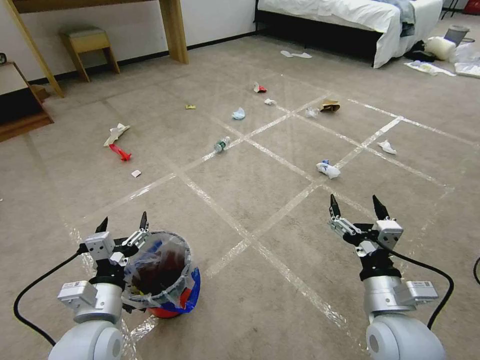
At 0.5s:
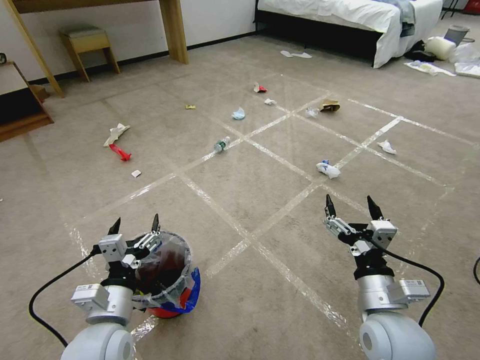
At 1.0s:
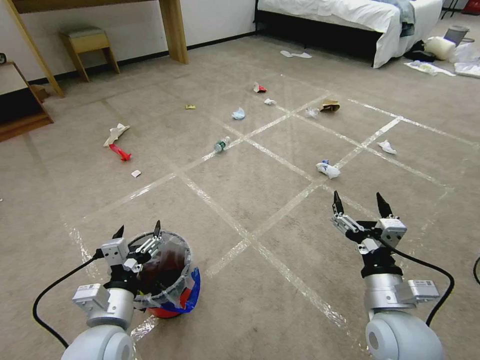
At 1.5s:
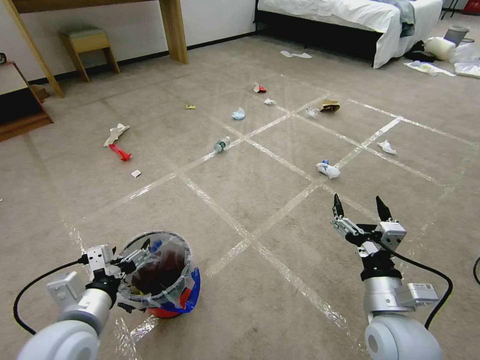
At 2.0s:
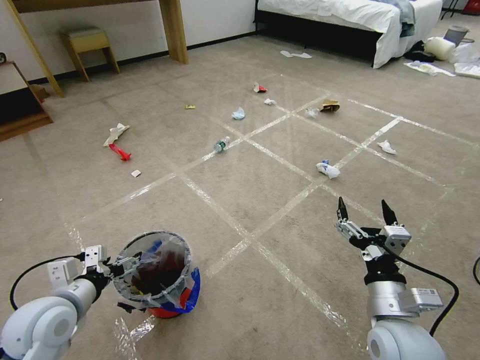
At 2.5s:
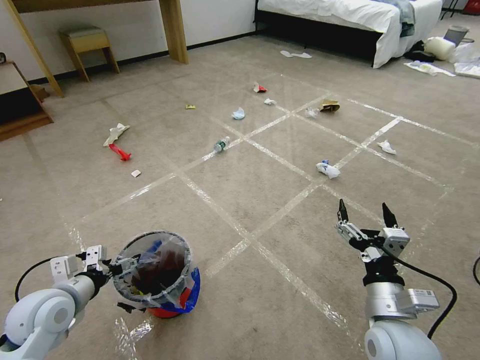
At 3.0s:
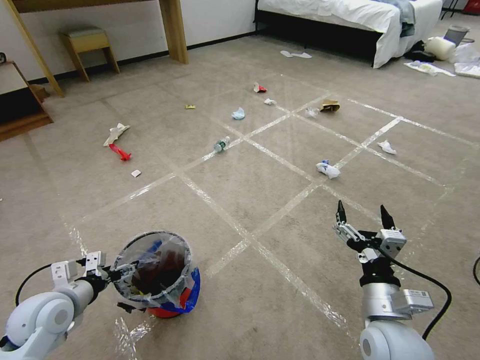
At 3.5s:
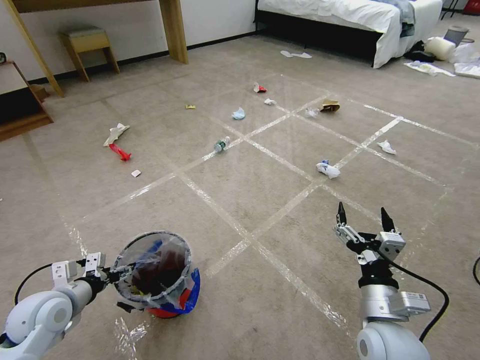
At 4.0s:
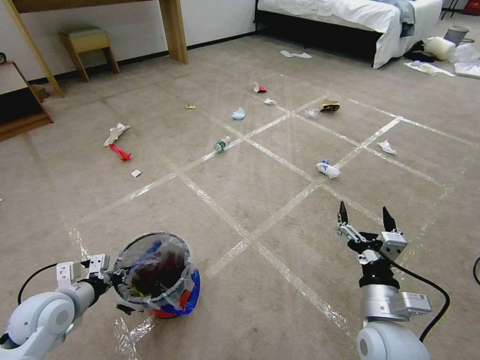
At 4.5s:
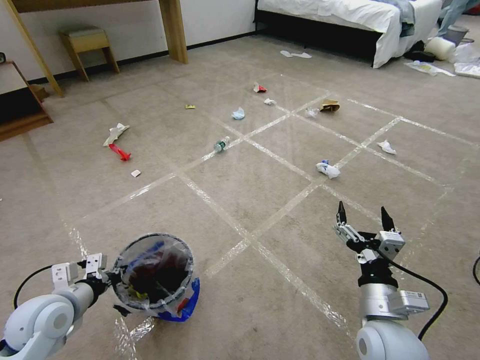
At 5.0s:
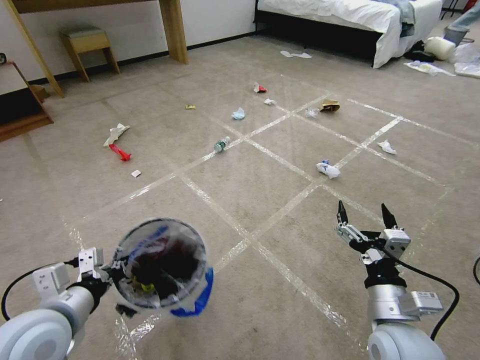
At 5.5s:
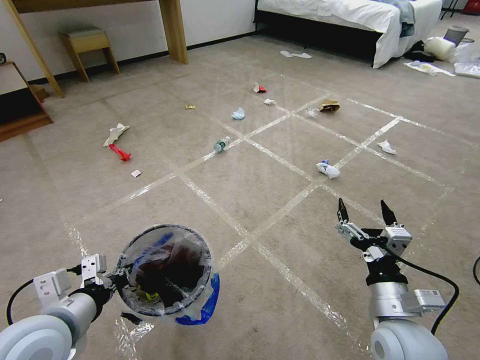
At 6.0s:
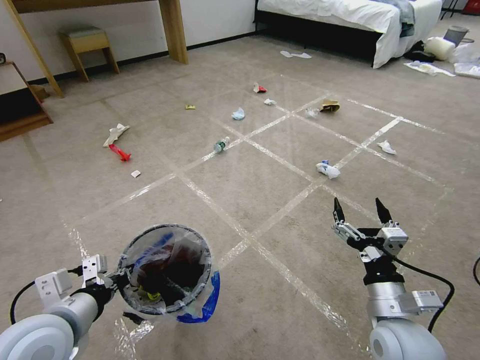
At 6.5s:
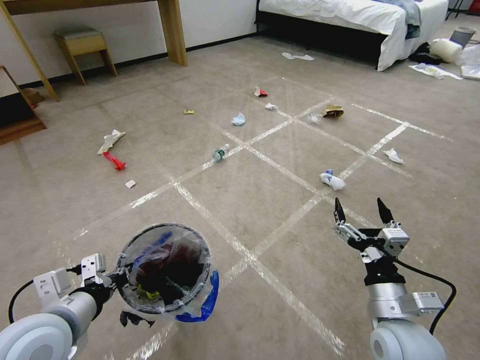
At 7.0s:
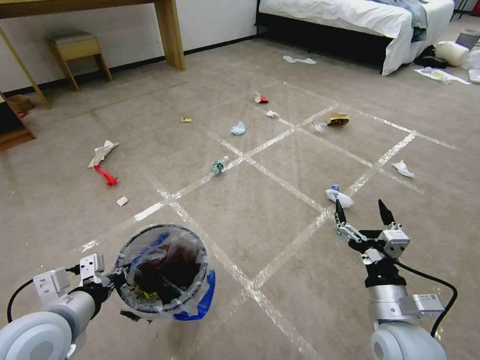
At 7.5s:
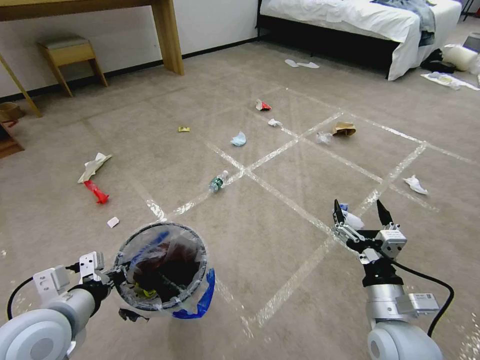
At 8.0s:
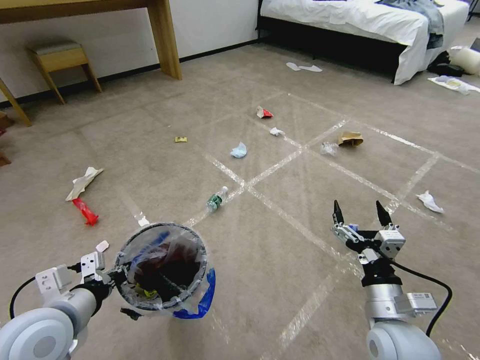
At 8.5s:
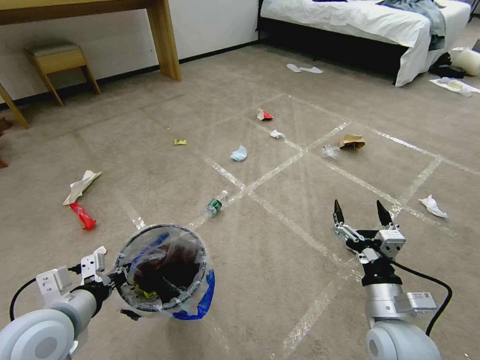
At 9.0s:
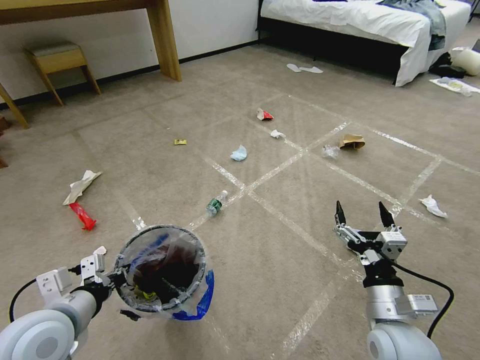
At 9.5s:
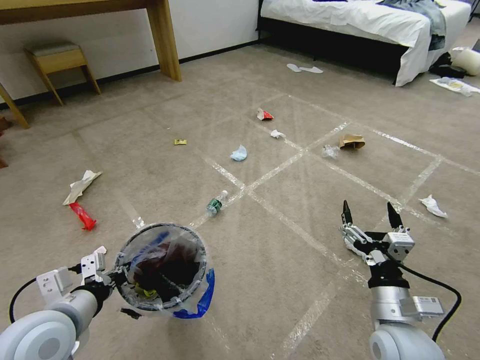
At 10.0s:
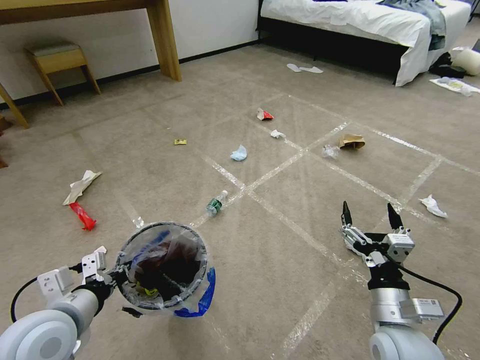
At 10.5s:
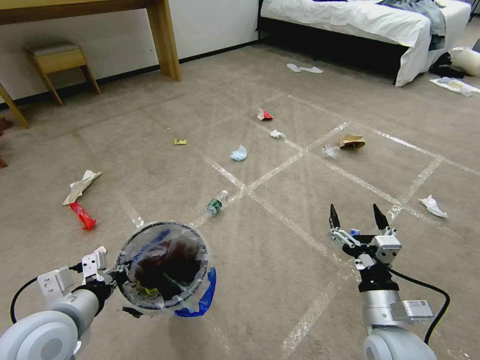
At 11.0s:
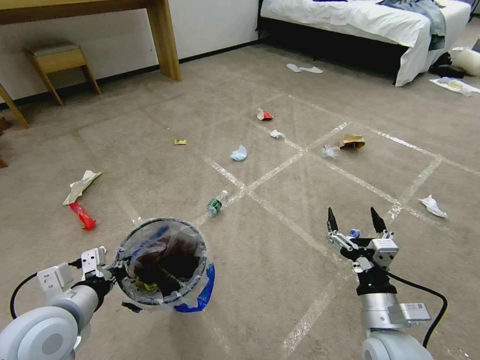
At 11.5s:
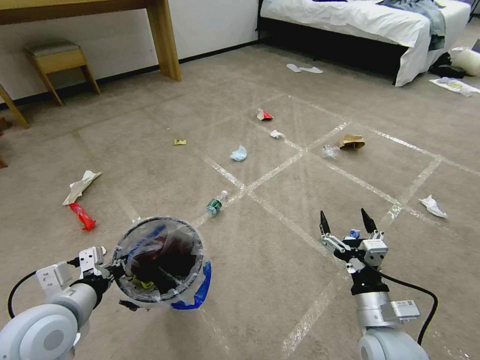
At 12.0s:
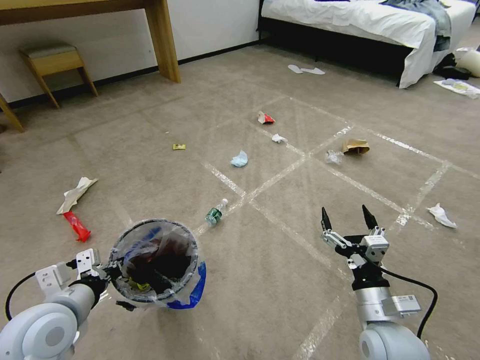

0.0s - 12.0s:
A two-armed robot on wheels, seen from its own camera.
Task of the whole recording: Pick up the trash bin and place the garbage on the floor into it.
2.0s - 4.0s: The left gripper ends up roughly 5 cm from where it was, and closes.
4.0s - 6.0s: The left gripper moves upward, to the right and backward, roughly 15 cm.
8.0s - 10.0s: The two grippers keep their place.
10.0s - 12.0s: The grippers make only small movements.

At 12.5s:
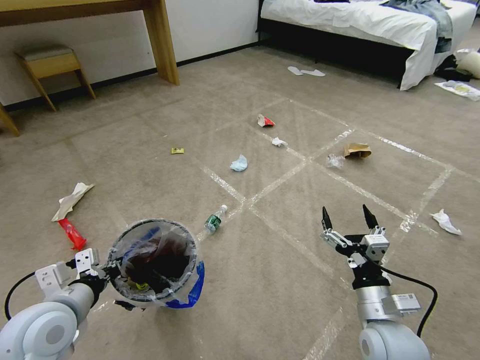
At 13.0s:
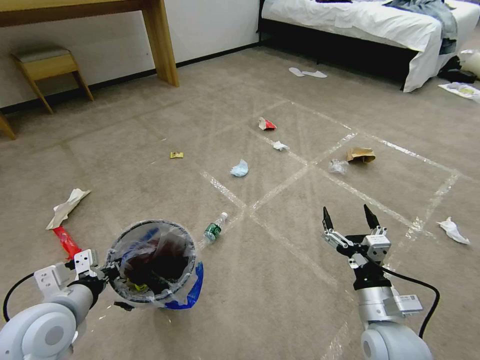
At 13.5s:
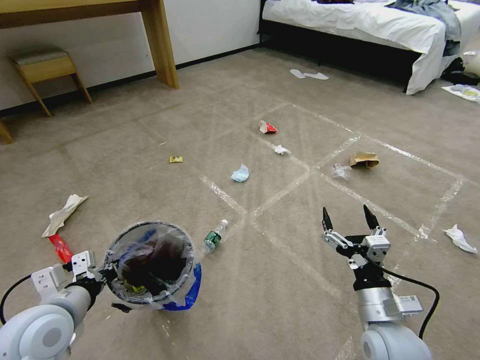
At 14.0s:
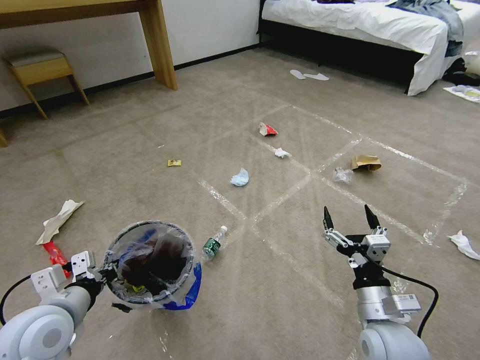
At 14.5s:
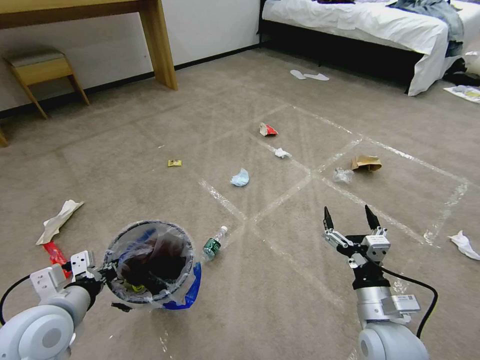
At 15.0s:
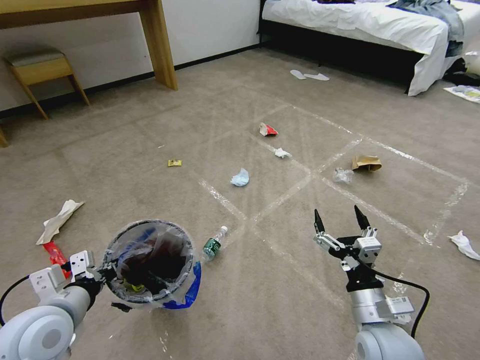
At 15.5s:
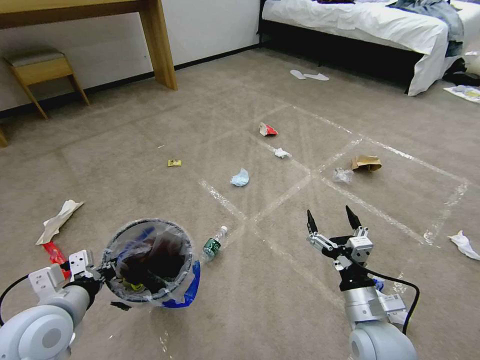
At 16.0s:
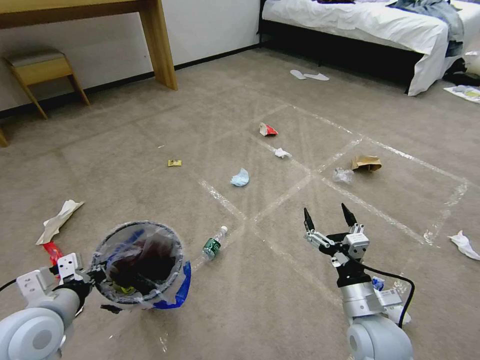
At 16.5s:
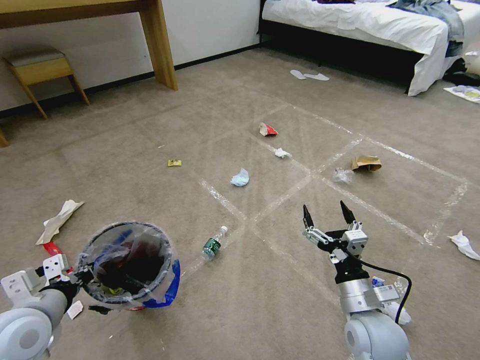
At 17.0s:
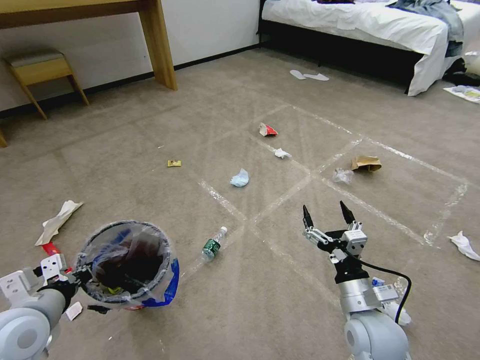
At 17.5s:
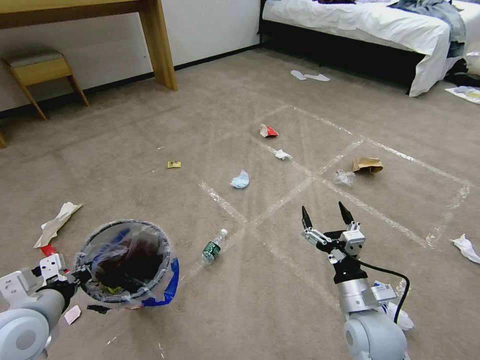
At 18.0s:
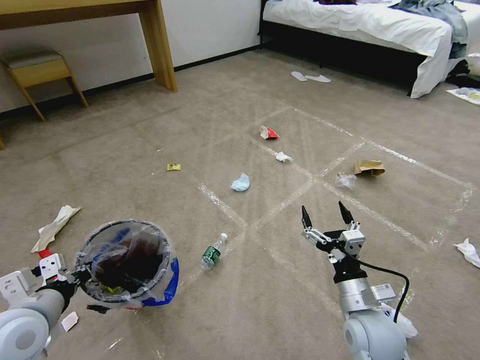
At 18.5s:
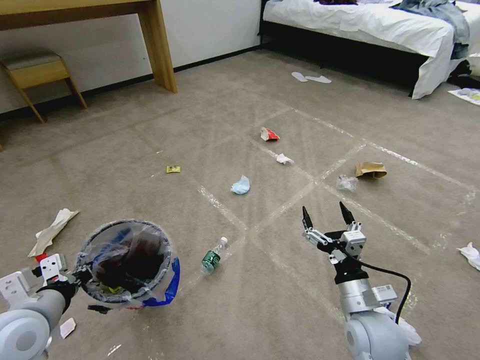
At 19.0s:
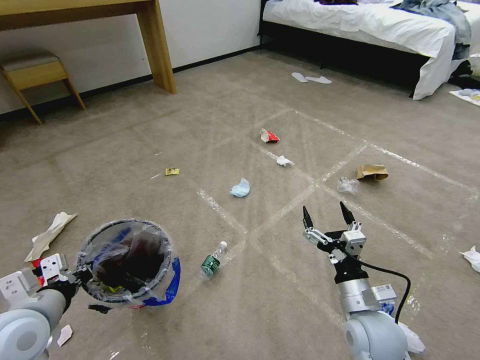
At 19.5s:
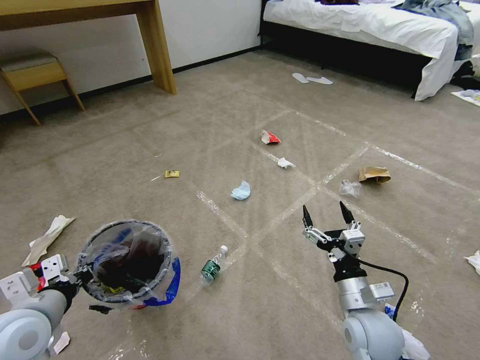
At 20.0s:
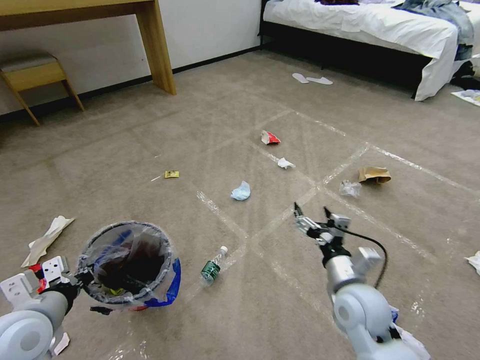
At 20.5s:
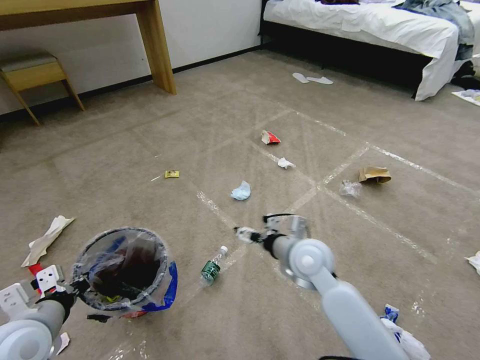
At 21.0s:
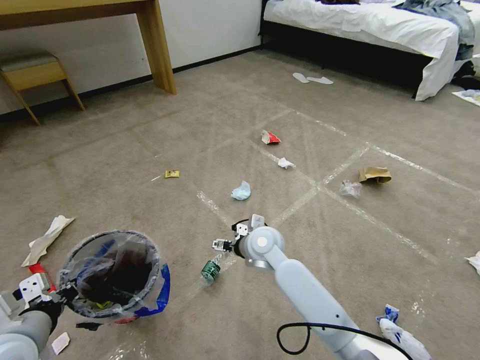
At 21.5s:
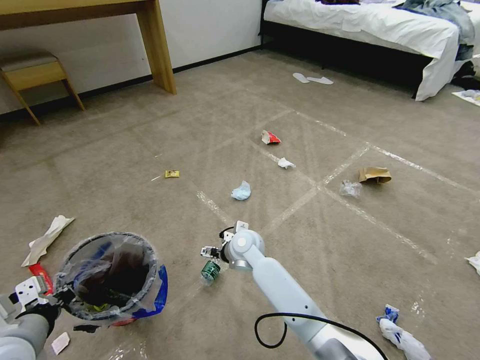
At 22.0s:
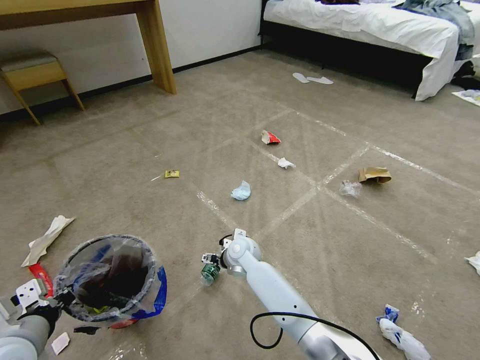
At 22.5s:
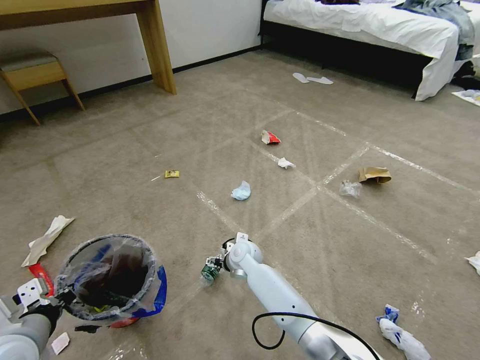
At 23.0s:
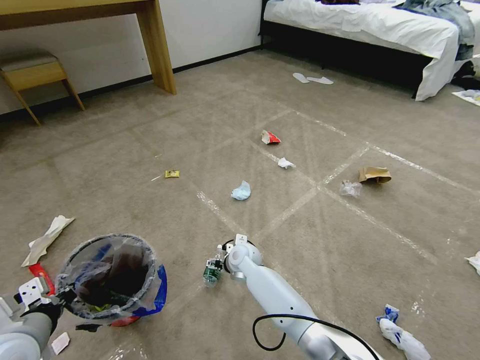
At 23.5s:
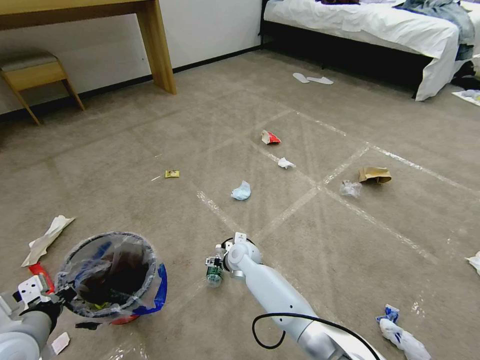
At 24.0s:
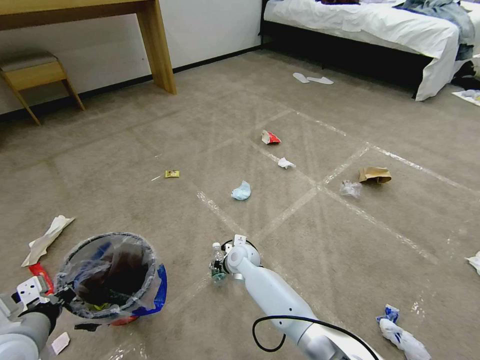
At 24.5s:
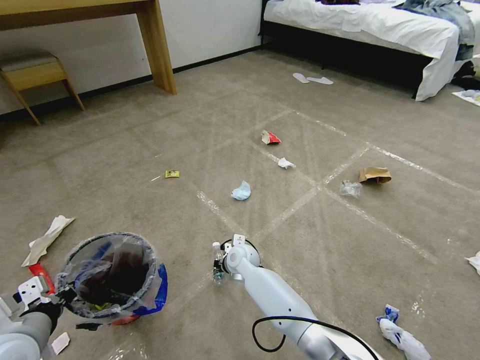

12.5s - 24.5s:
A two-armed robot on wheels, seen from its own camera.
Task of the whole recording: Pick up the trash bin and place the garbage on the floor into it.
12.5s - 14.5s: The two grippers keep their place.
14.5s - 16.5s: The grippers stay close to where they were, moving slightly.
16.5s - 18.5s: Both grippers stay about where they are.
18.5s - 20.5s: The right gripper travels forward and to the left by some 15 cm.
20.5s - 22.5s: The right gripper heads downward, to the left and forward, covering roughly 20 cm.
22.5s - 24.5s: The right gripper closes its fingers.

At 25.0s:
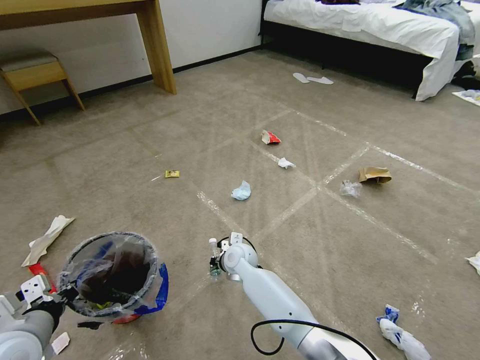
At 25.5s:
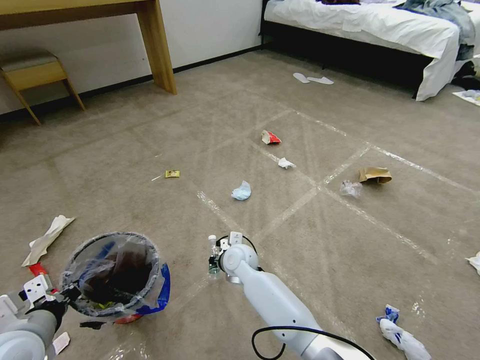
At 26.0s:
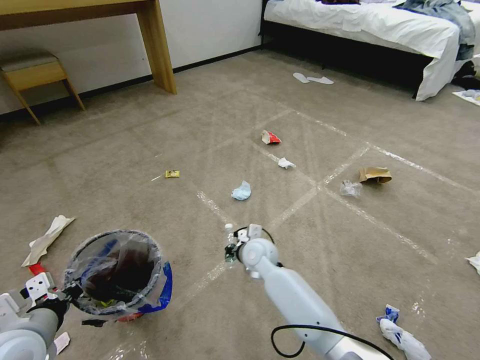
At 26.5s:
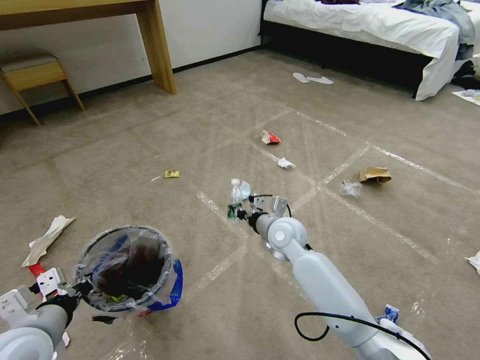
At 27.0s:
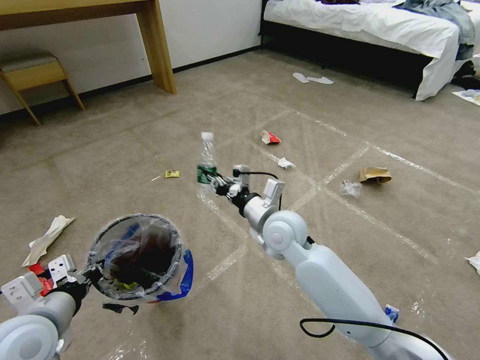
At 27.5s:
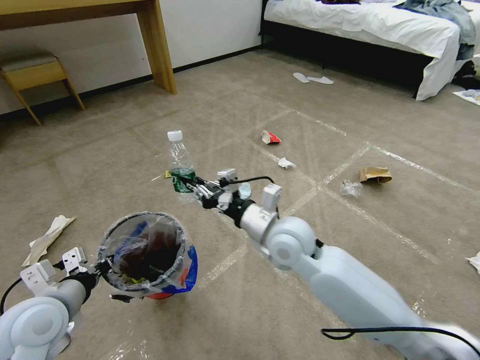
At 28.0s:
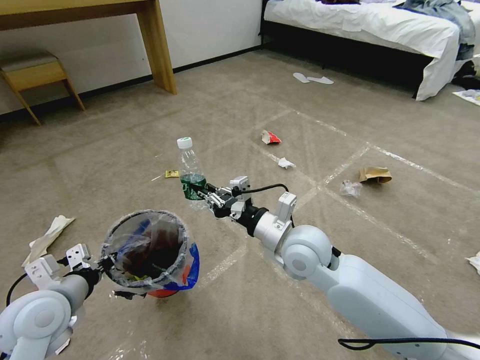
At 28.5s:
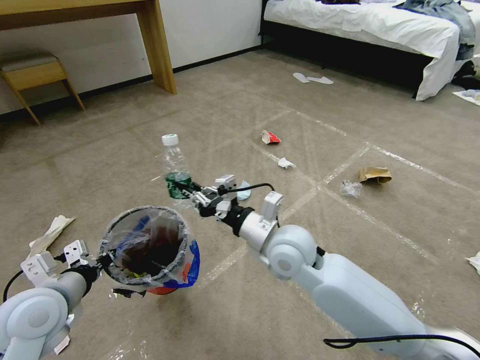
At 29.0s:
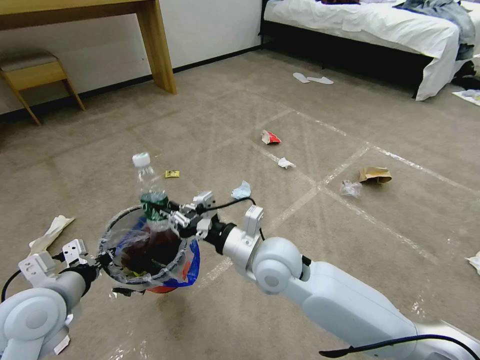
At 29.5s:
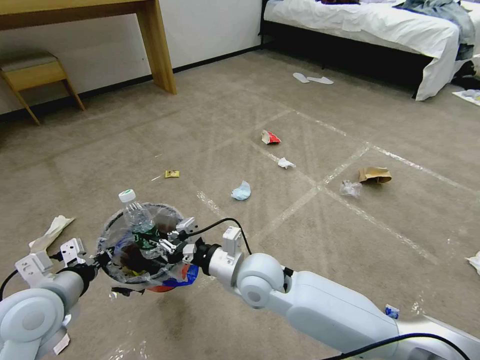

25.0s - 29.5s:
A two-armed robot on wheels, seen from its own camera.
Task of the whole recording: Pick up the trash bin and place the garbage on the floor into it.
25.0s - 27.0s: The right gripper is displaced upward and to the right by some 20 cm.
27.0s - 29.5s: The right gripper goes some 10 cm backward.
